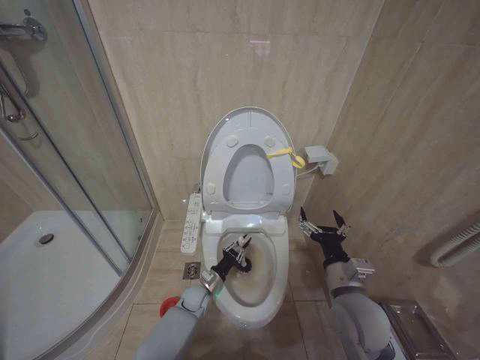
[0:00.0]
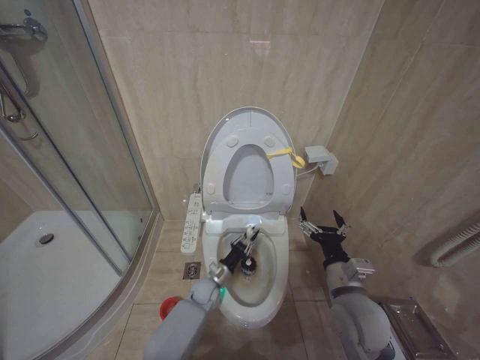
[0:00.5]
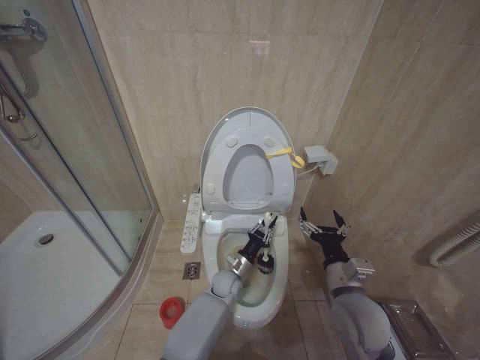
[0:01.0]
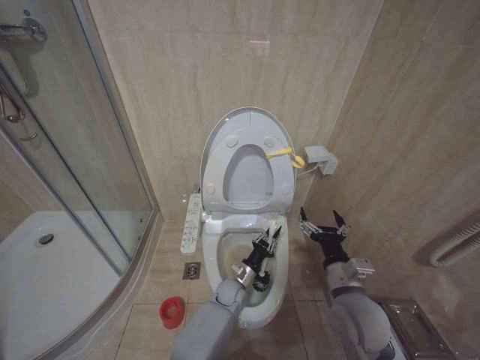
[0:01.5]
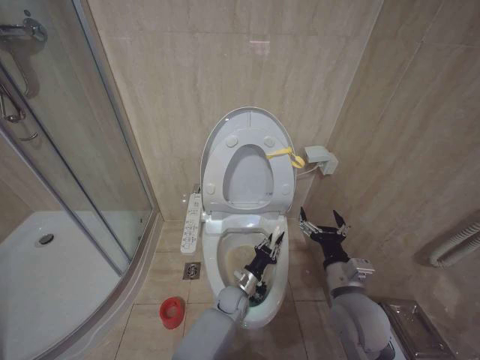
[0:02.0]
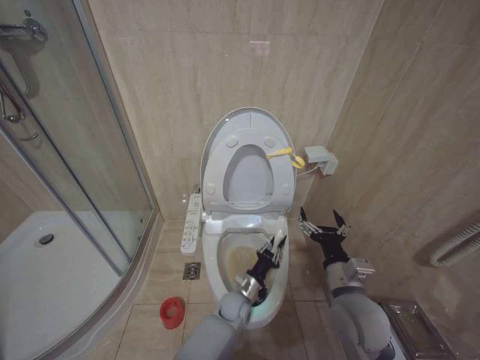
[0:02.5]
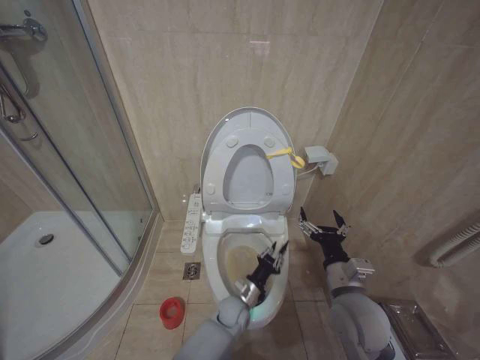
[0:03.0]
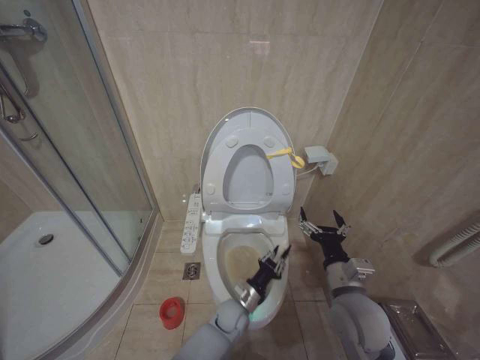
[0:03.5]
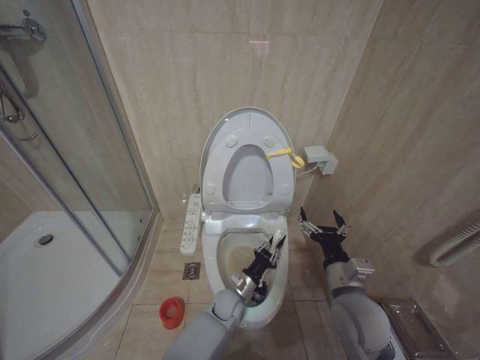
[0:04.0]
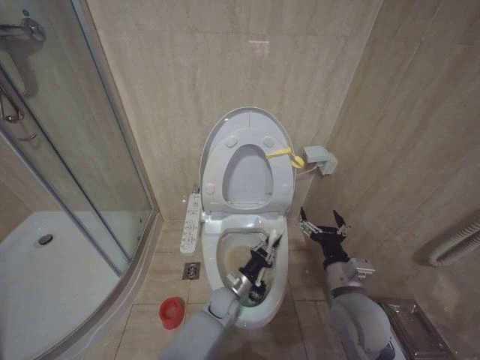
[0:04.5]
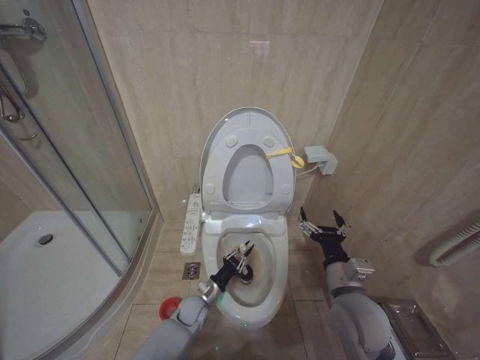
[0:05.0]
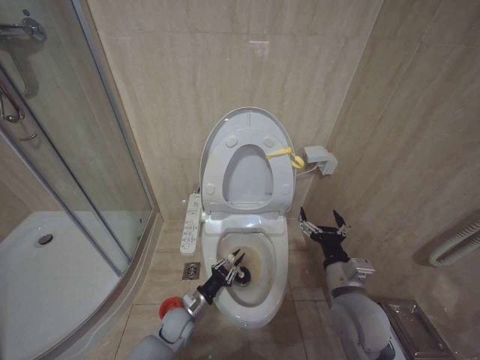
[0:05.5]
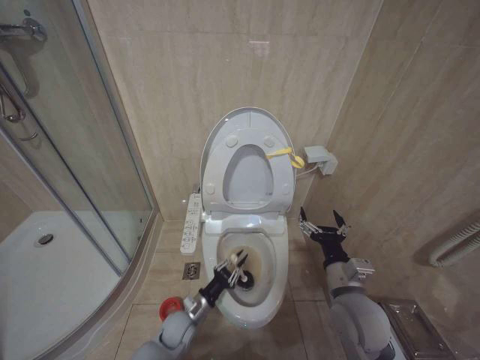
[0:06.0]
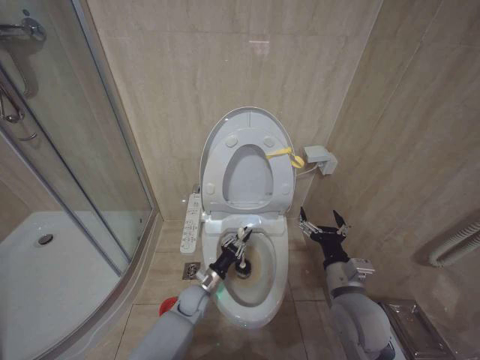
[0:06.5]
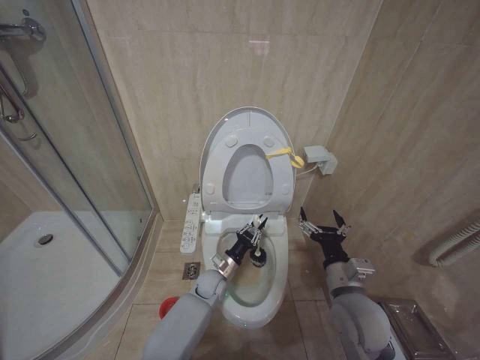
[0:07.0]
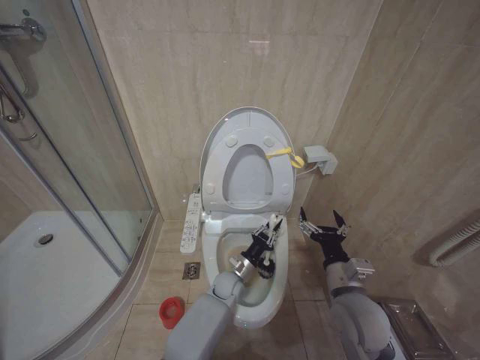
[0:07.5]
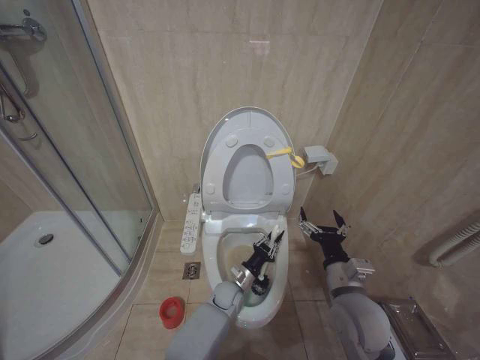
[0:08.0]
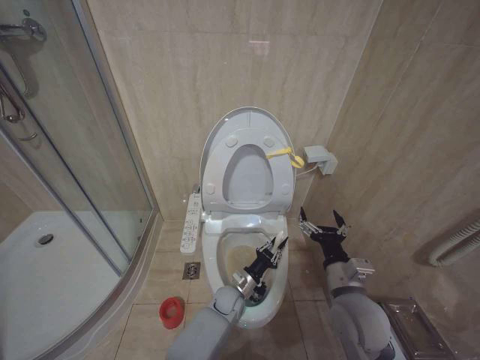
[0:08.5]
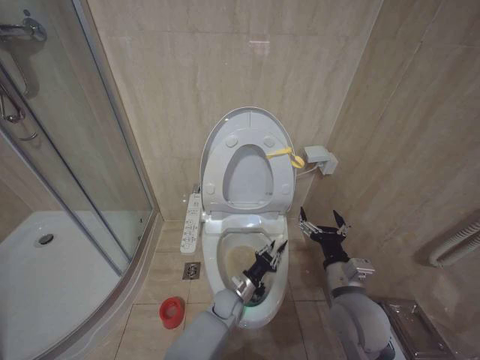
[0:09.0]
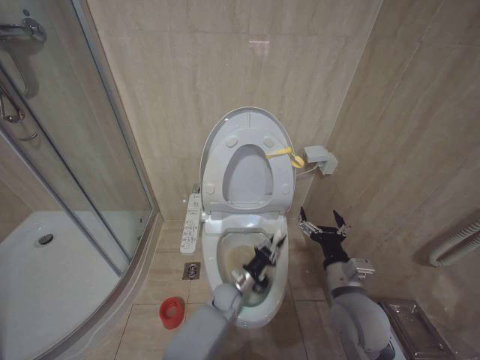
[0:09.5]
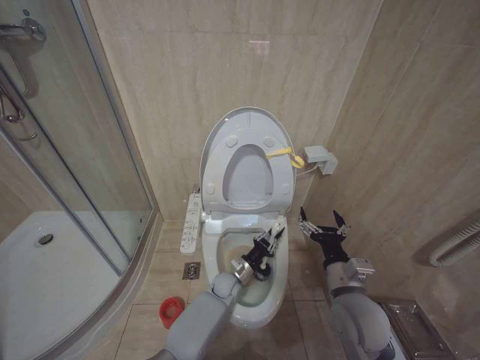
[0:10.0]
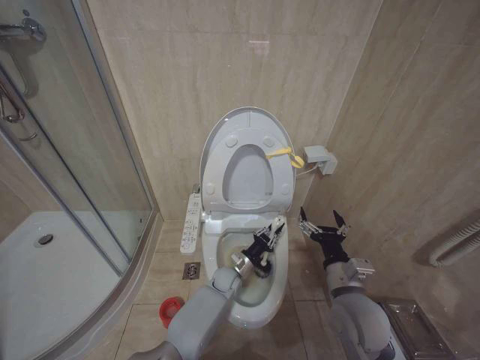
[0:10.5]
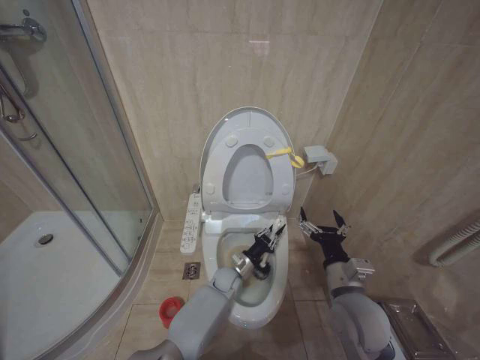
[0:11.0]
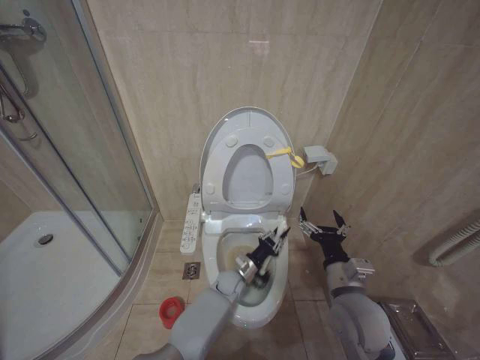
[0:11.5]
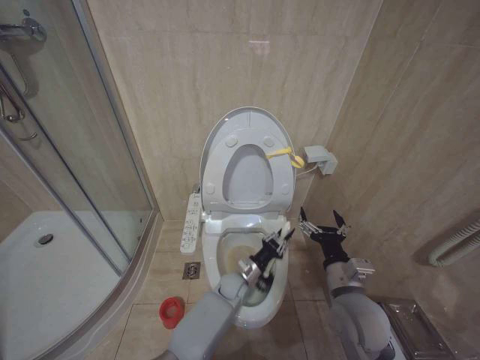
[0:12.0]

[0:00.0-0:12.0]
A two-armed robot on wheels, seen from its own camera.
Task of the whole recording: Open the toilet lid, clean the toilet bowl with a toilet brush, close the toilet lid, and flush.
0.0 to 2.0 s: The left gripper heads to the right, covering approximately 10 cm.
4.0 to 6.0 s: The left gripper heads to the left, covering roughly 15 cm.
6.0 to 8.0 s: The left gripper is displaced to the right and forward by approximately 20 cm.
8.0 to 12.0 s: The grippers move only a little.

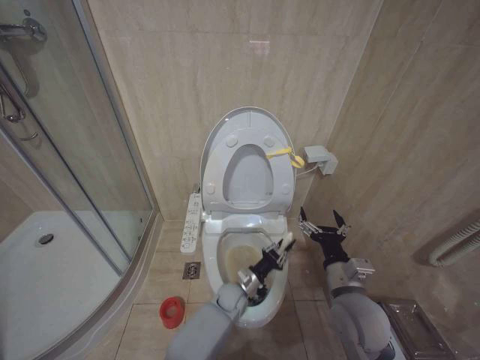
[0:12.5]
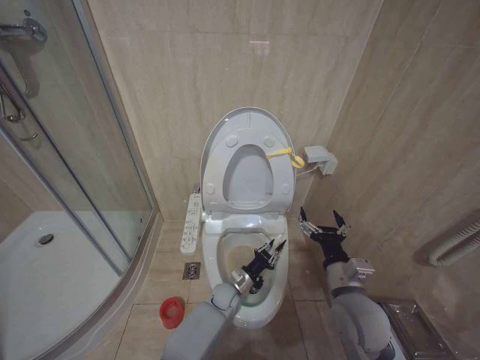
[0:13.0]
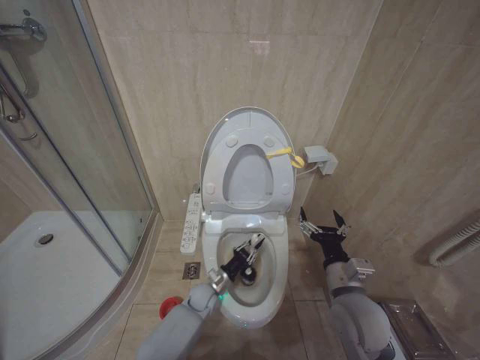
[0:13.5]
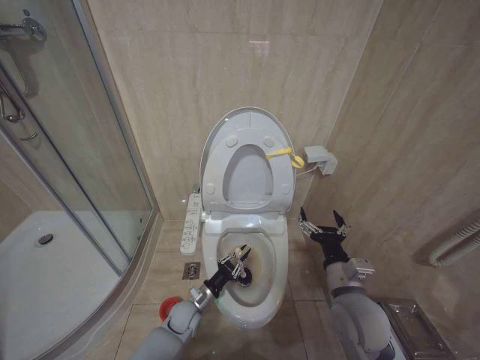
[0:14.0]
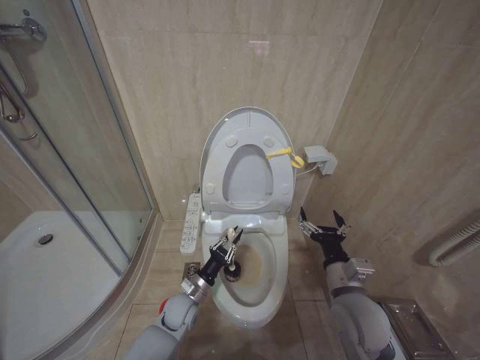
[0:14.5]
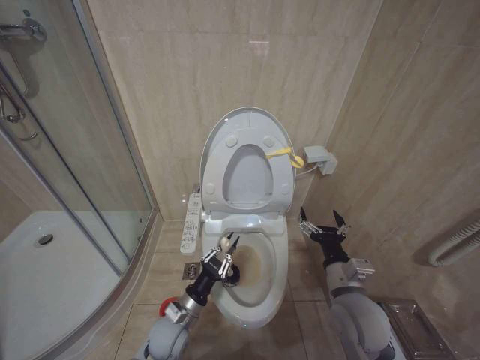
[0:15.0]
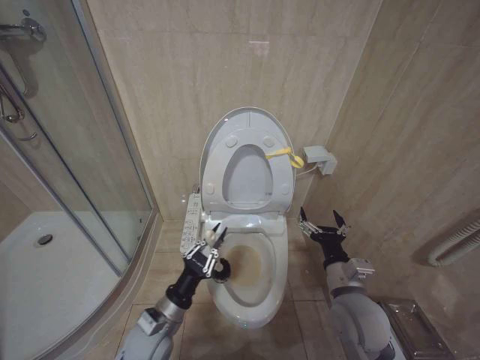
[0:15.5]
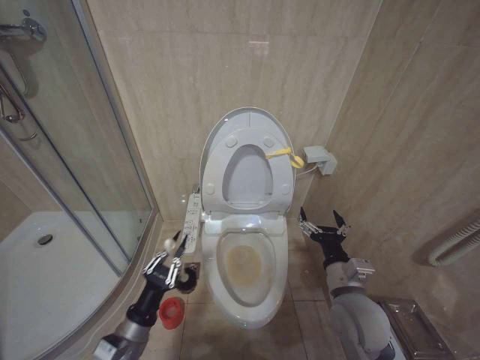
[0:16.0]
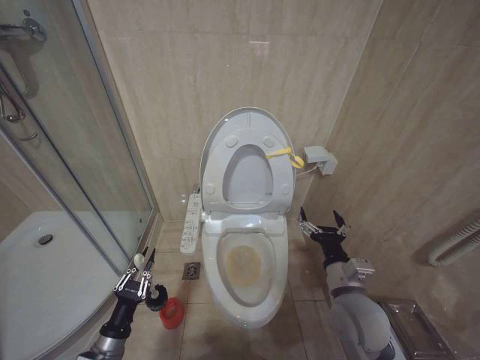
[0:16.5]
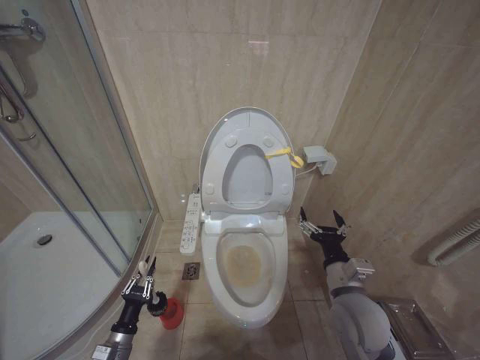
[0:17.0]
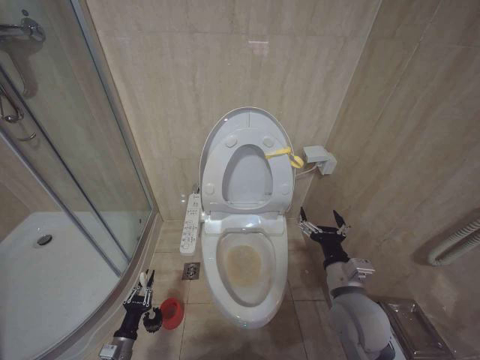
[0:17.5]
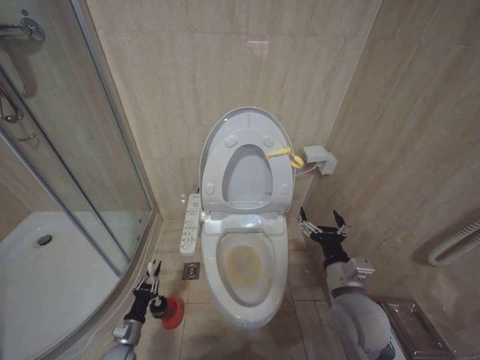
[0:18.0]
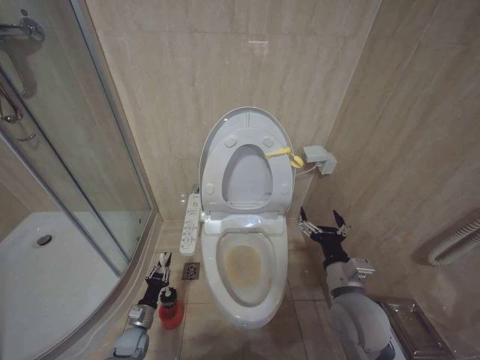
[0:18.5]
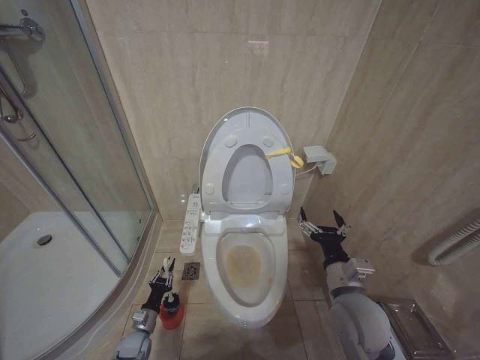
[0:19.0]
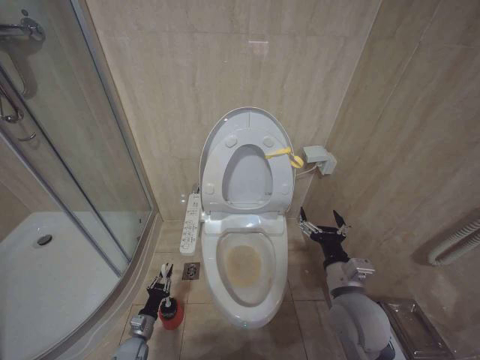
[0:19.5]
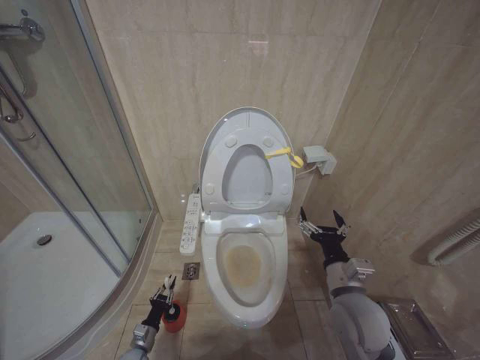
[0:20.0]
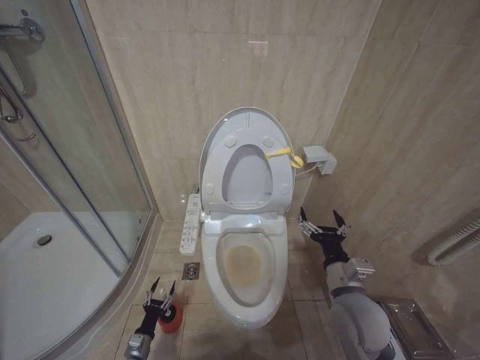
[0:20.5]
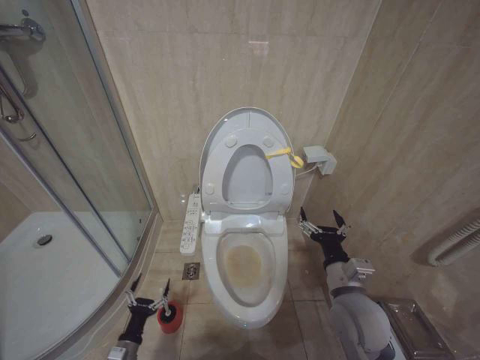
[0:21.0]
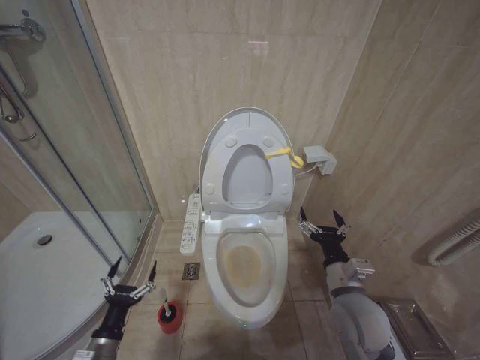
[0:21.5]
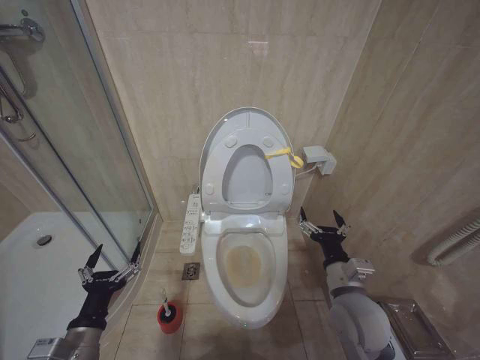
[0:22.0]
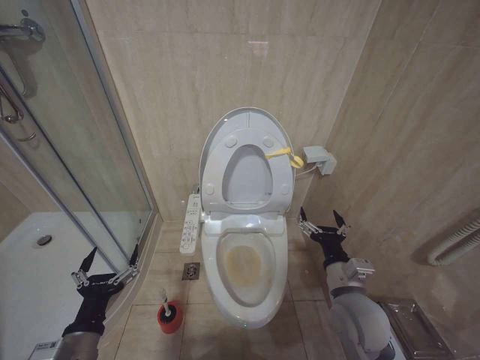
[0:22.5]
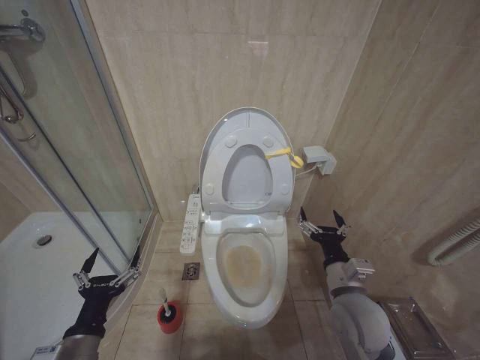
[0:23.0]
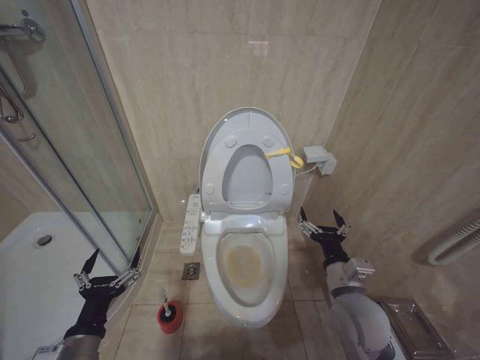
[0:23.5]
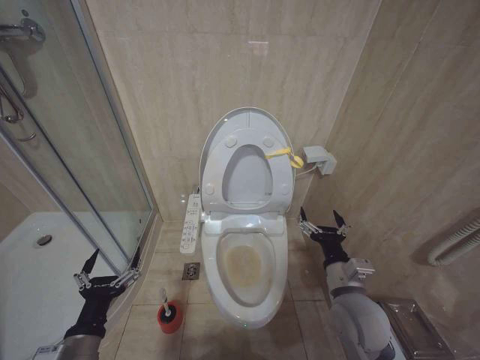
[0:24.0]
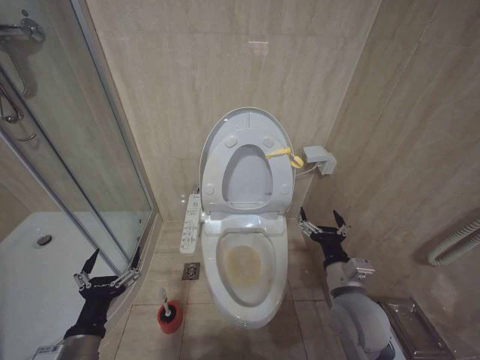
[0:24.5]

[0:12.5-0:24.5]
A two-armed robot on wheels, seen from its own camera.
Task of the whole recording: Open the toilet lid, clean the toilet bowl with a toilet brush, close the toilet lid, and flush.
12.5 to 14.5 s: The left gripper is displaced to the left by some 15 cm.
14.5 to 16.5 s: The left gripper moves backward and to the left, about 25 cm.
16.5 to 18.5 s: The left gripper goes approximately 20 cm downward and forward.
18.5 to 20.5 s: The left gripper heads backward, covering about 5 cm.
20.5 to 22.5 s: The left gripper moves upward, about 35 cm, and opens its fingers.
22.5 to 24.5 s: The two grippers keep their place.

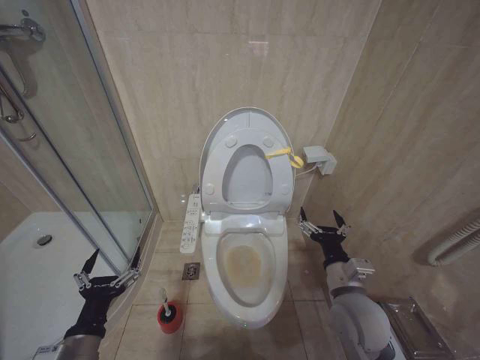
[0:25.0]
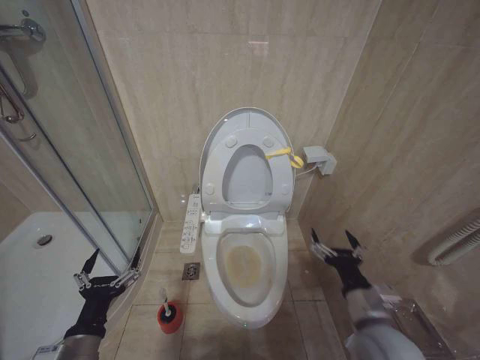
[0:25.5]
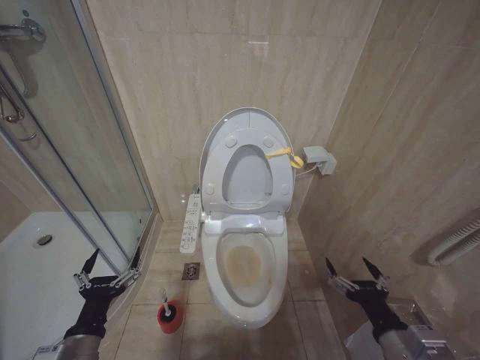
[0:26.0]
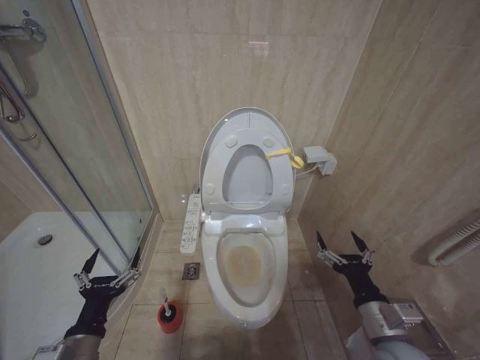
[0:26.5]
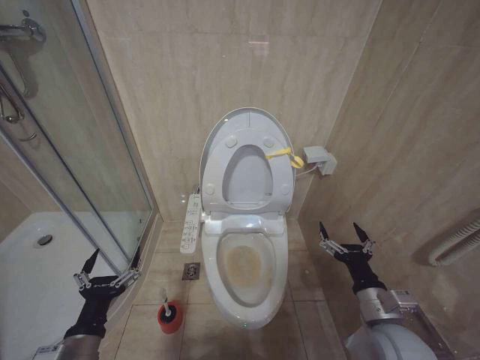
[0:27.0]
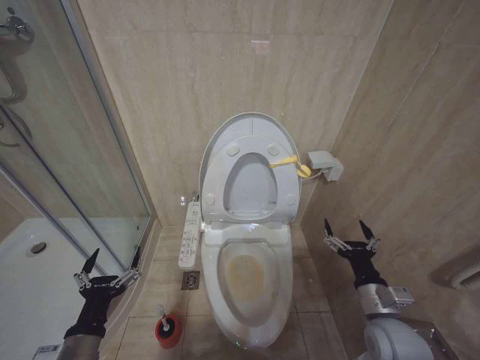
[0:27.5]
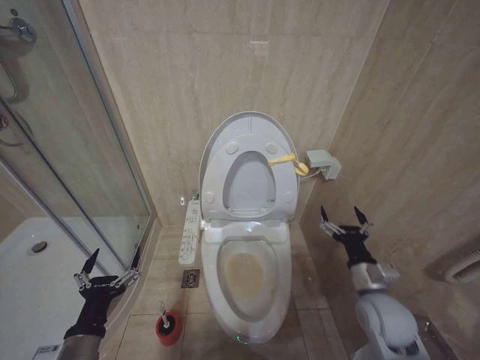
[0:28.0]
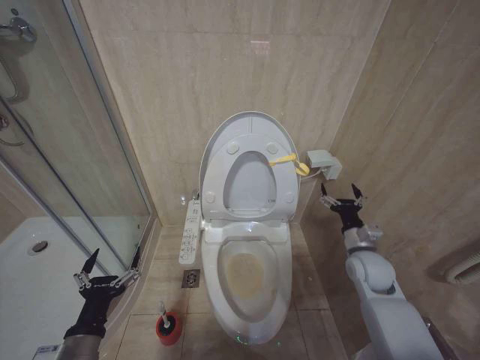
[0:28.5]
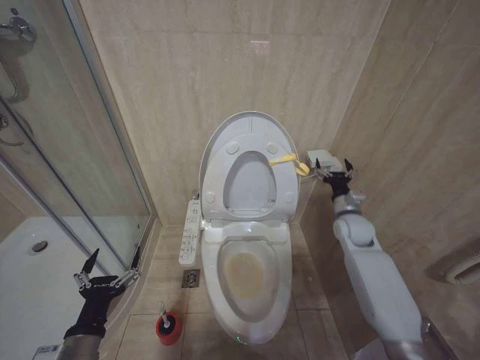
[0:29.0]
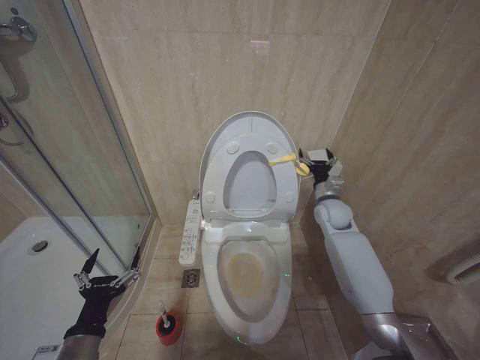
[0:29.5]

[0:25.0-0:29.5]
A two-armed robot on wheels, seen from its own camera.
Task of the whole recording: Open the toilet lid, clean the toilet bowl with a toilet brush, close the toilet lid, and flush.
25.0 to 27.0 s: The right gripper heads to the right and backward, covering about 10 cm.
27.0 to 29.5 s: The right gripper is displaced forward by roughly 30 cm.
